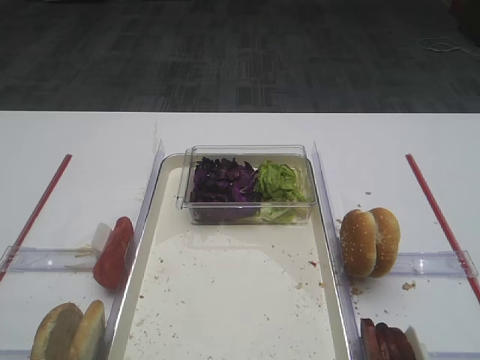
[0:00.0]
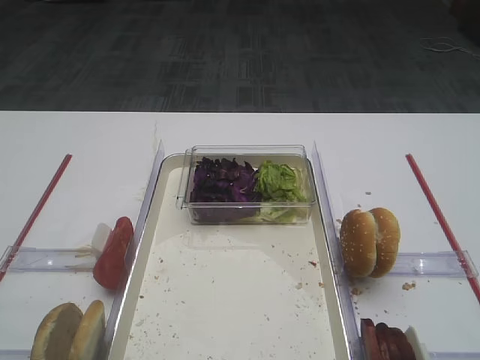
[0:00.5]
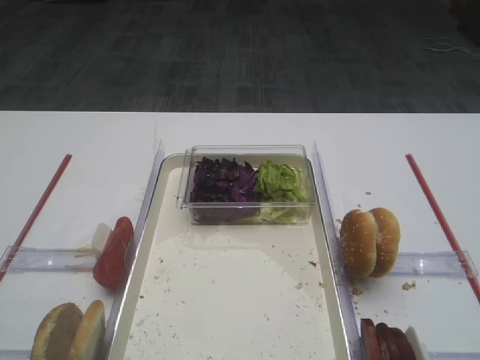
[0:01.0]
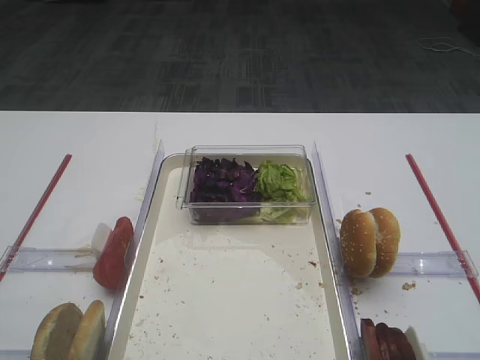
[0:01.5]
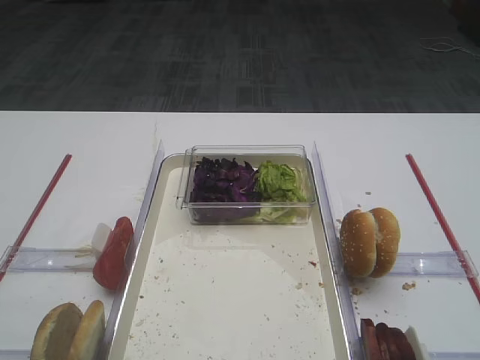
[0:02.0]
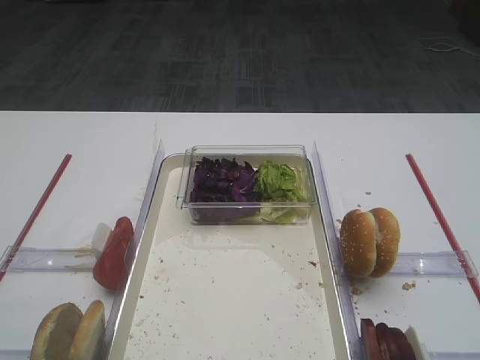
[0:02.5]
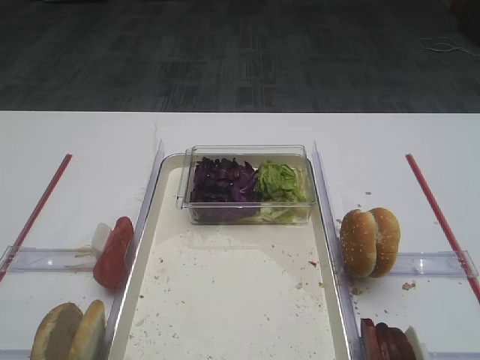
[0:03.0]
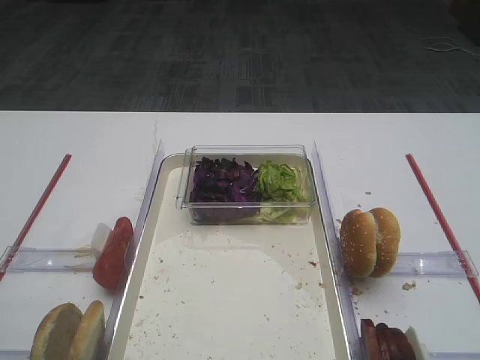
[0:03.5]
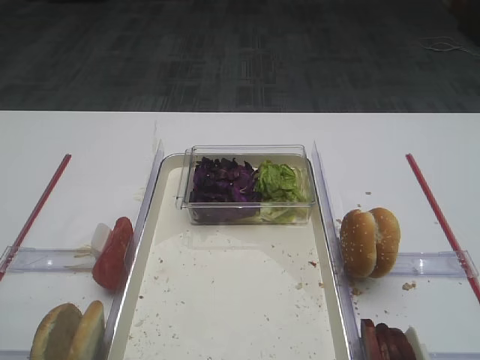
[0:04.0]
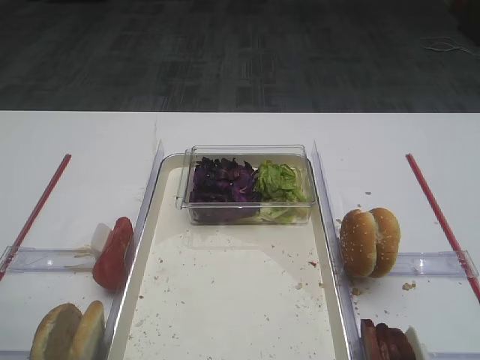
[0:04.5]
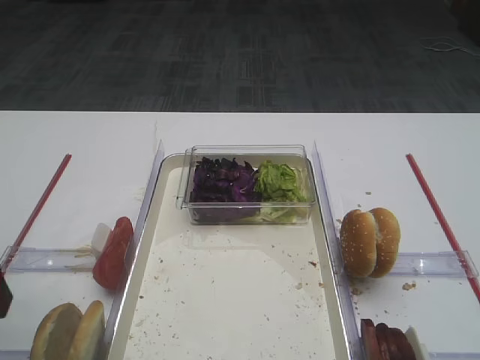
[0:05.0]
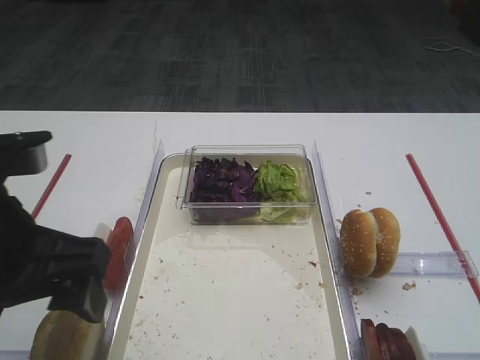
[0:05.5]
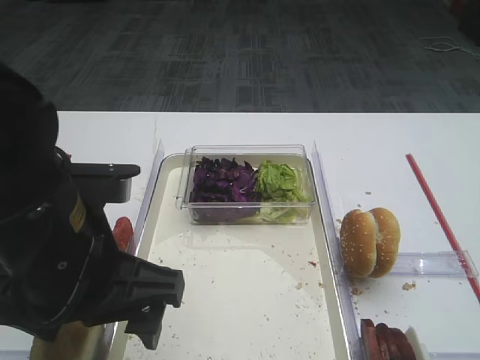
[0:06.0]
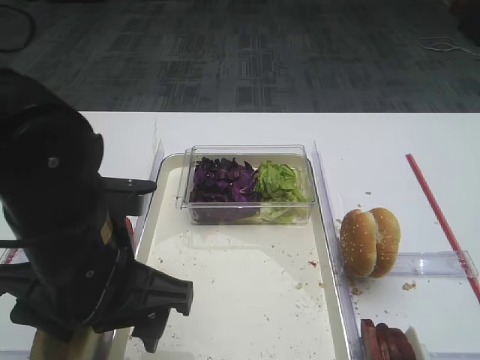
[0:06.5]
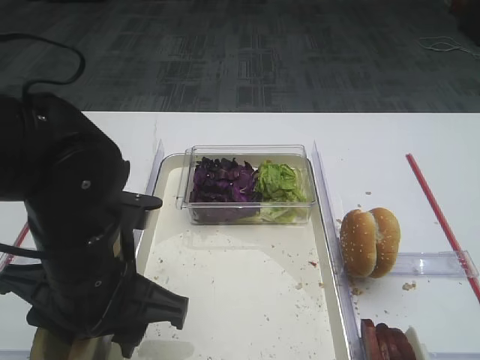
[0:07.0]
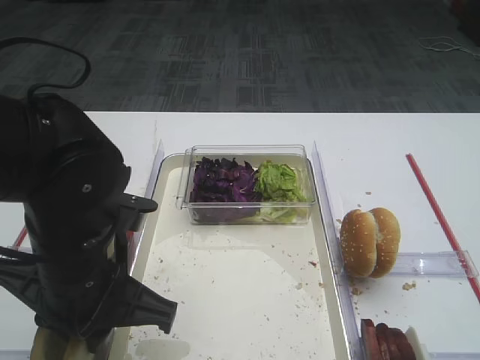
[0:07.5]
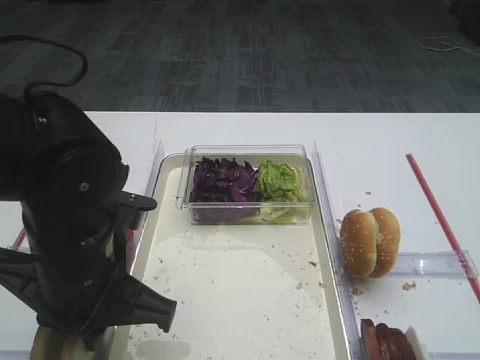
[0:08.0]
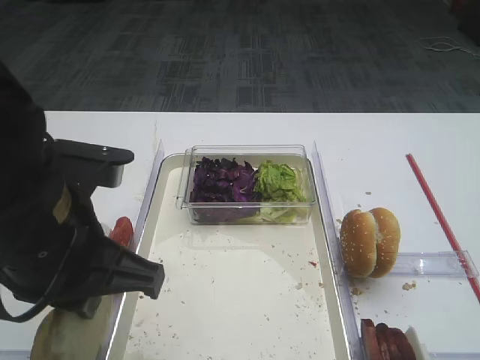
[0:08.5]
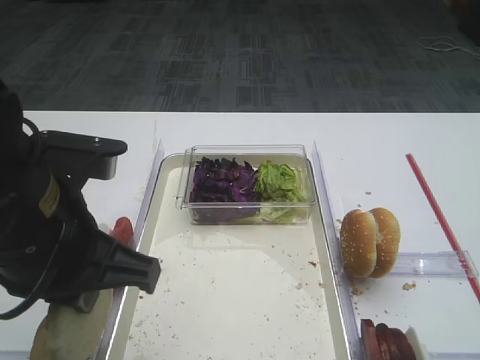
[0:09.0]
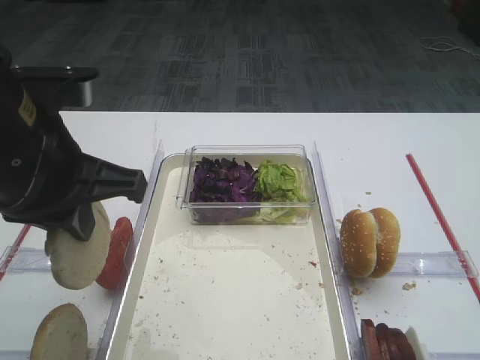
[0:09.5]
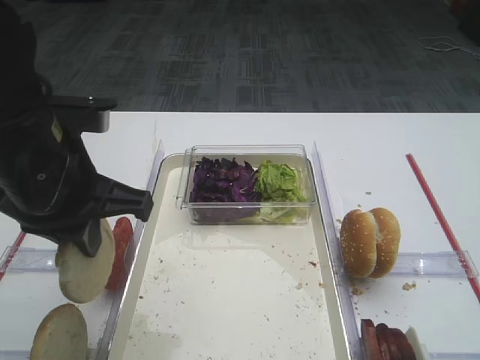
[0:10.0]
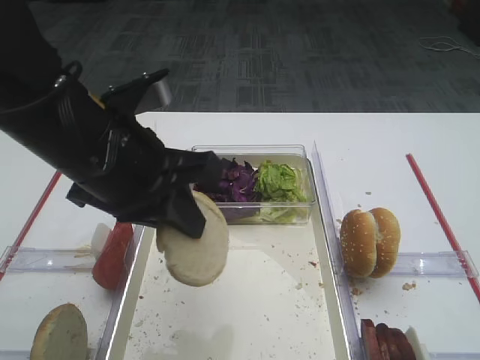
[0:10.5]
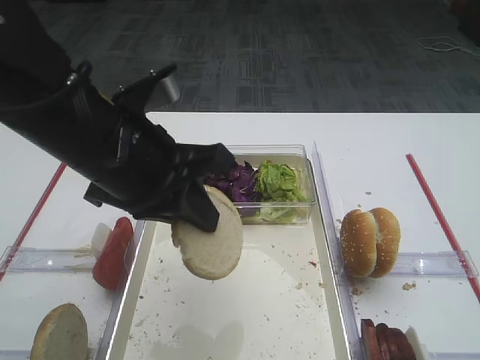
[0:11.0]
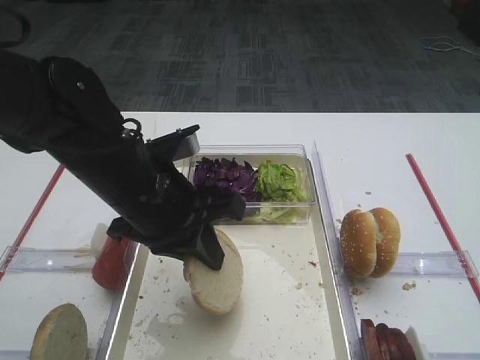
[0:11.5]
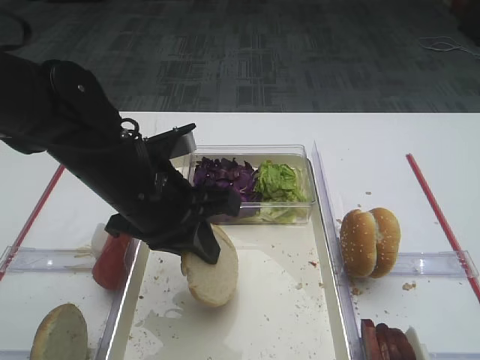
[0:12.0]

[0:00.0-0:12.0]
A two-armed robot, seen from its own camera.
Step, 0:00.0 to 0:08.5: Pick up the bread slice with the left gripper.
0:04.0 to 0:06.0: The left gripper shifts roughly 15 cm to the right.
0:06.0 to 0:08.0: The left gripper moves some 5 cm, and closes.
0:08.0 to 0:10.0: The left gripper heads upward, covering roughly 5 cm.
0:10.0 to 0:12.0: The left gripper moves to the right and downward, some 10 cm.

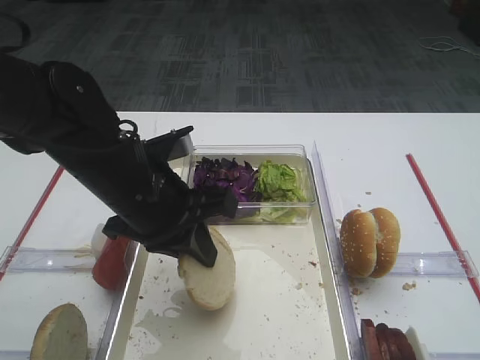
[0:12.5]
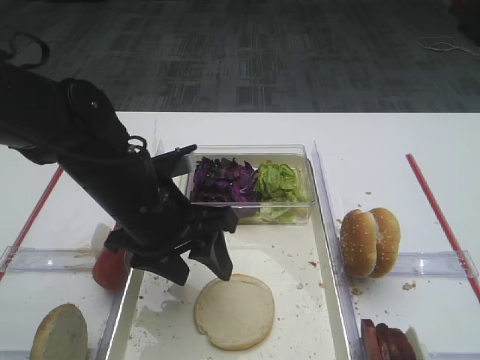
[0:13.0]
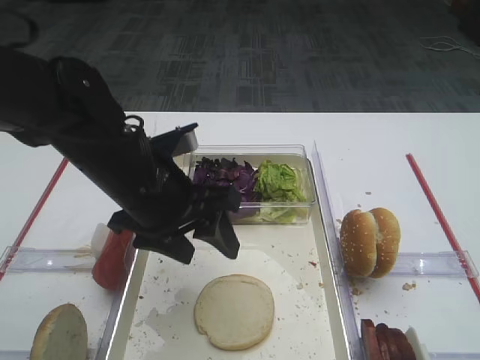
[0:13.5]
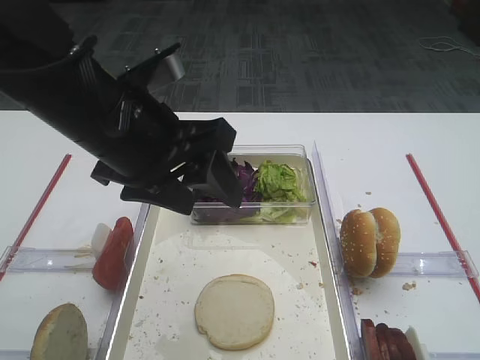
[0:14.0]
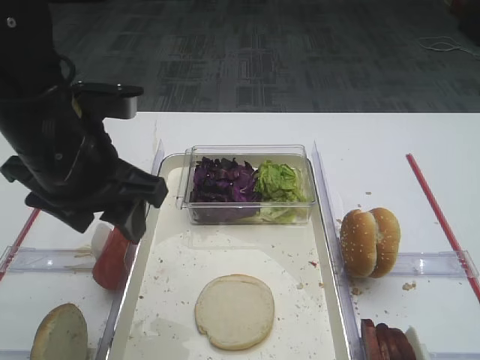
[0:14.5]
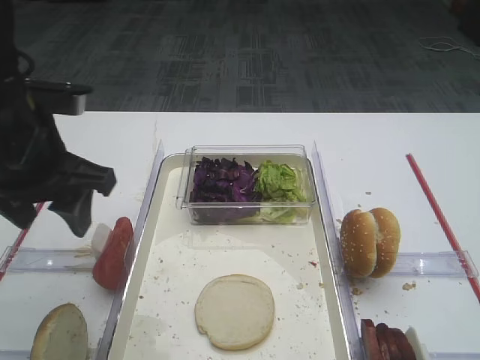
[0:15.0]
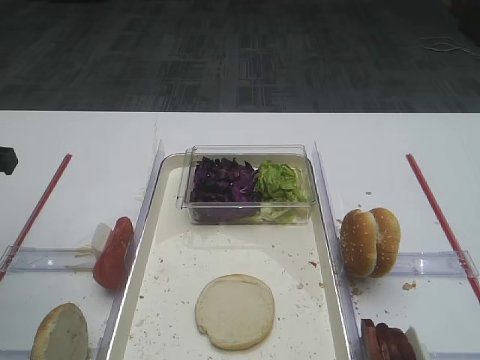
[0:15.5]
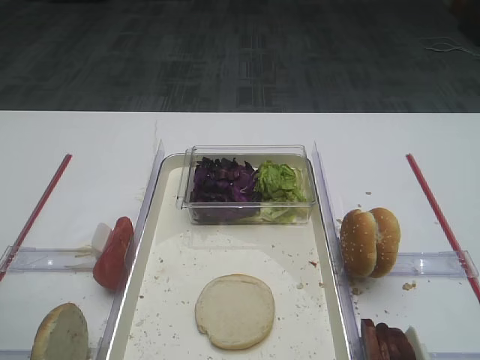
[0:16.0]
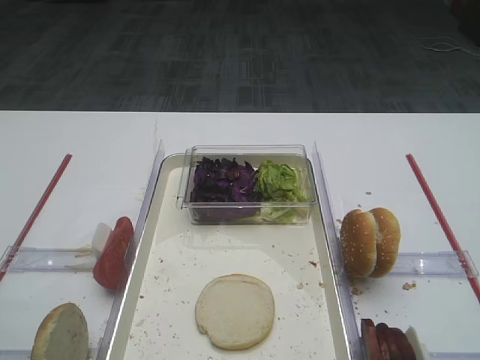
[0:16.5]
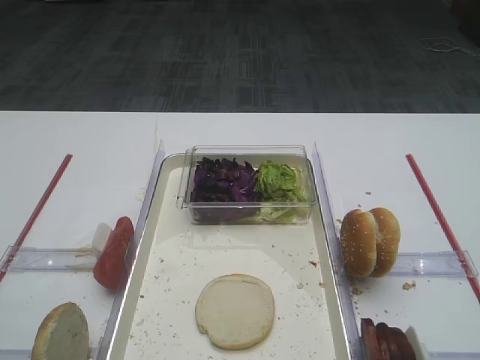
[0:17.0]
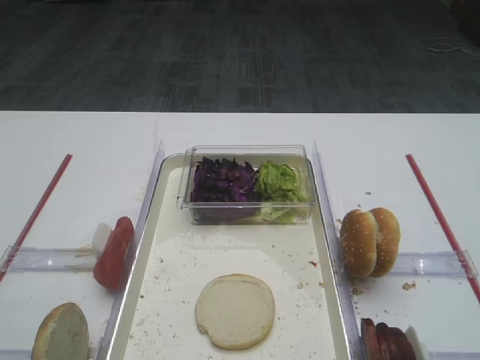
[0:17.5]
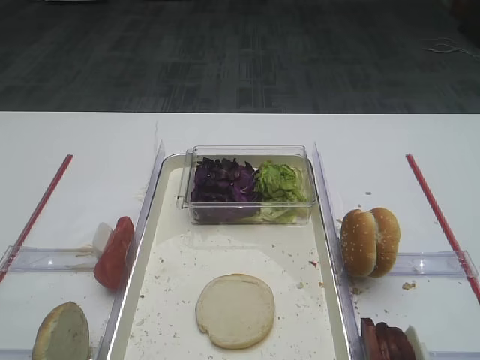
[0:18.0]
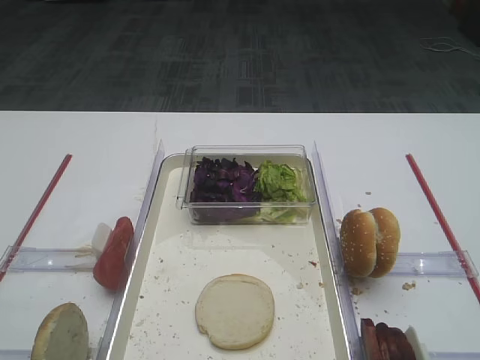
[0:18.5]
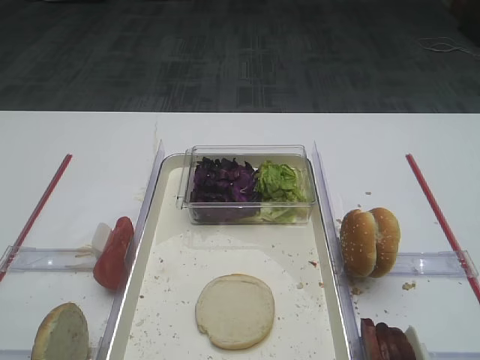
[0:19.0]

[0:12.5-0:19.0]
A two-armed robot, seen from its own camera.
0:12.5 to 0:14.5: The left gripper goes approximately 5 cm upward, and opens its fingers.
0:14.5 to 0:17.0: The left gripper moves backward and to the left, roughly 25 cm.

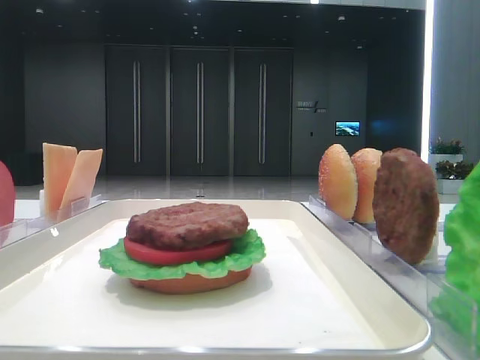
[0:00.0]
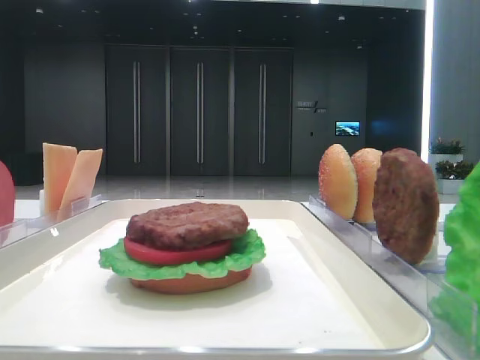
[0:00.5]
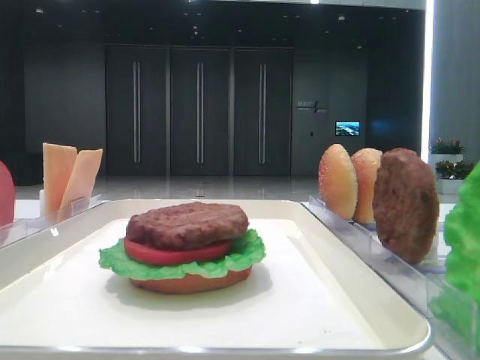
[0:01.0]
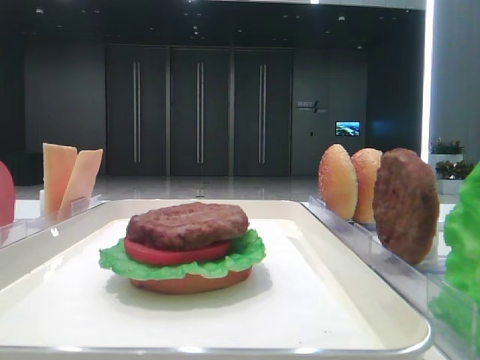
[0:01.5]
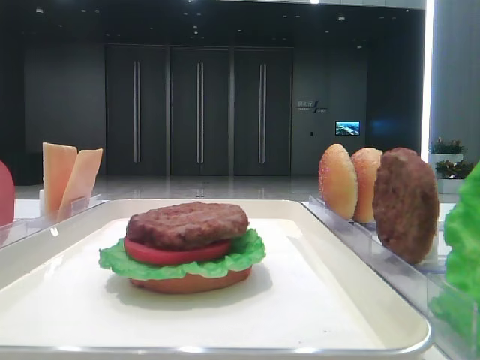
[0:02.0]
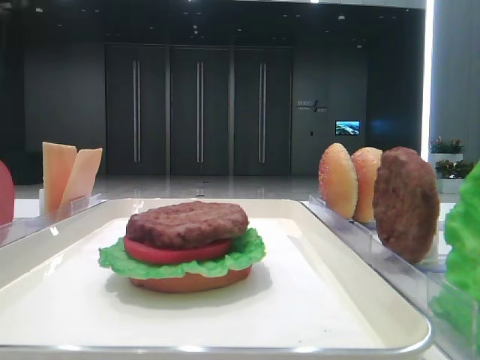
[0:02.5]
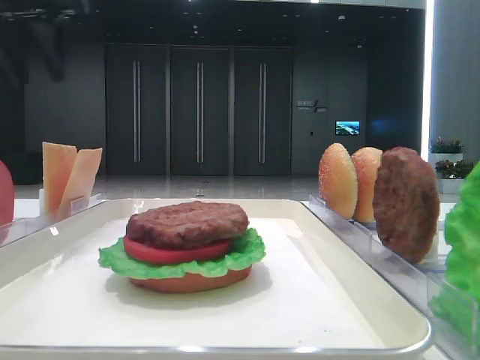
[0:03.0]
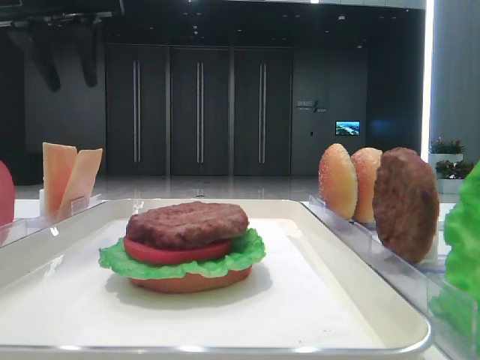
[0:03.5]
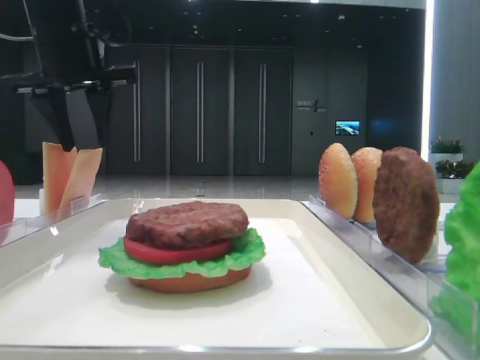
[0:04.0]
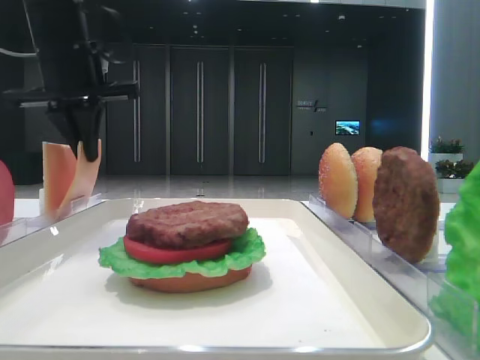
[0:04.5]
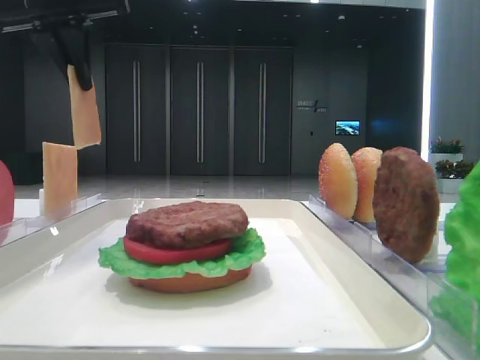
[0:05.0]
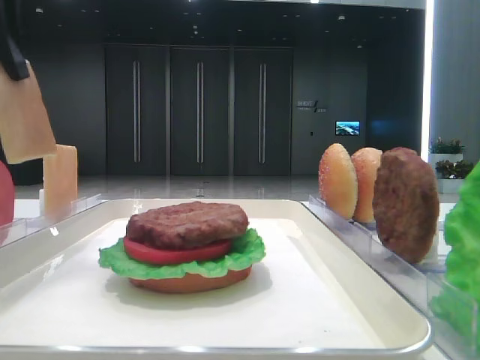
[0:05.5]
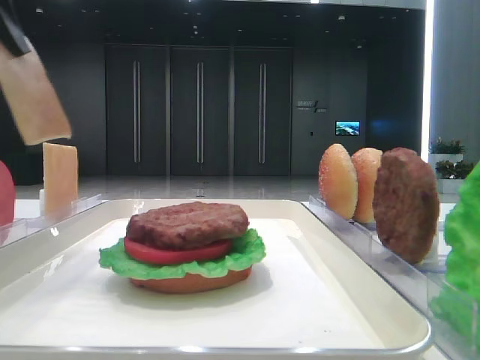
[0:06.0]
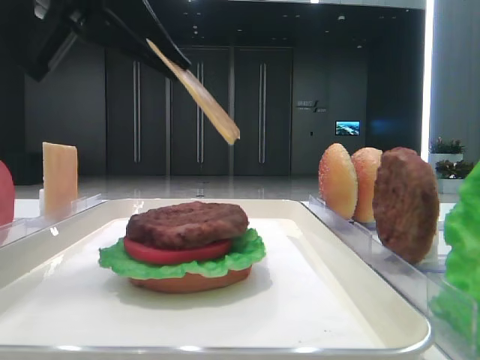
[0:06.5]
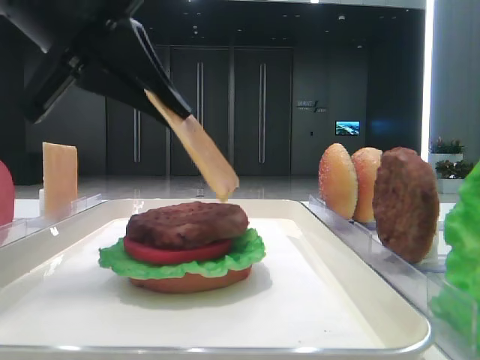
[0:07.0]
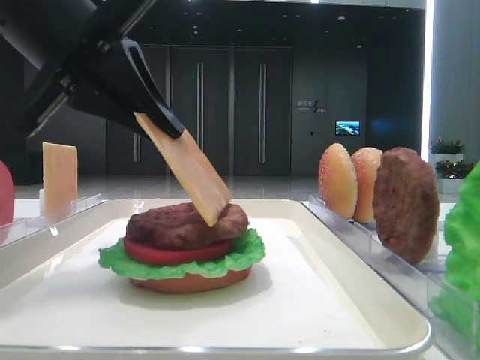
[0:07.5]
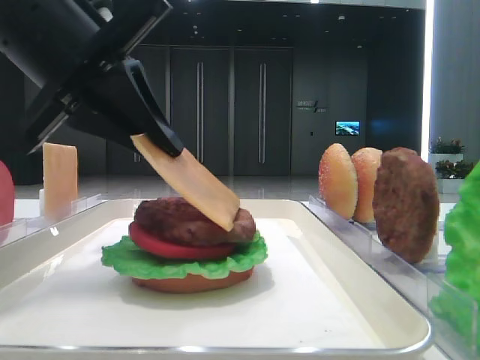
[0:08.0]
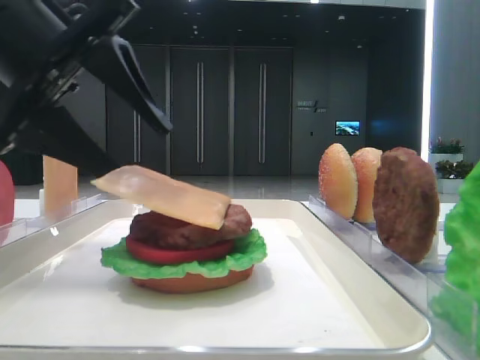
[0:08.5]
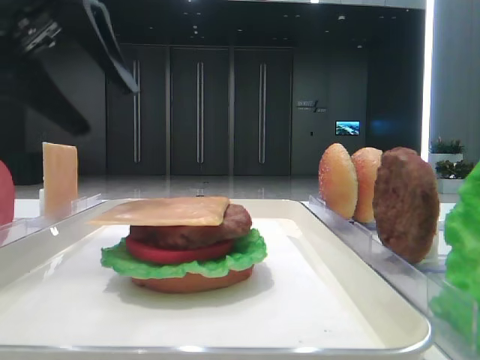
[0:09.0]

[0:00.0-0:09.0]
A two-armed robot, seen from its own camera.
Step, 0:00.0 to 0:04.0: Pick up the cheese slice with the left hand.
Step, 0:04.5 to 0:08.5: Place the cheese slice on the patty with the left hand.
0:02.0 to 0:04.5: The left gripper goes roughly 30 cm forward and to the right, and closes.
0:04.5 to 0:07.0: The left gripper shifts roughly 15 cm backward.
0:07.0 to 0:09.0: The left gripper changes place by some 5 cm, and opens up.
